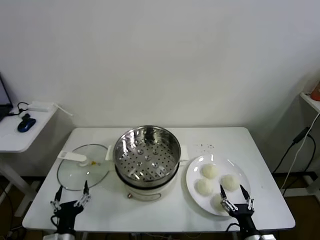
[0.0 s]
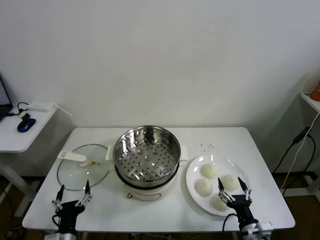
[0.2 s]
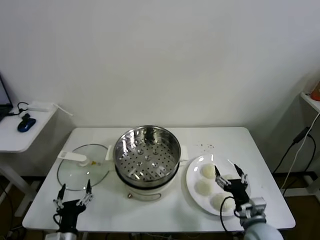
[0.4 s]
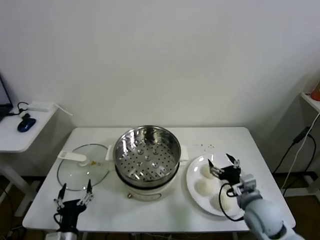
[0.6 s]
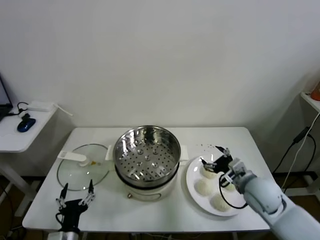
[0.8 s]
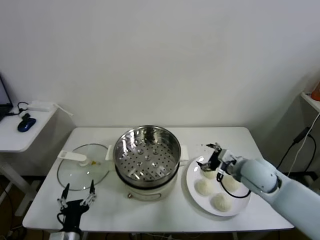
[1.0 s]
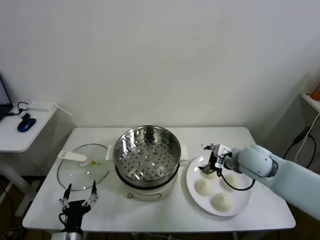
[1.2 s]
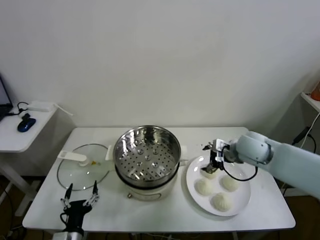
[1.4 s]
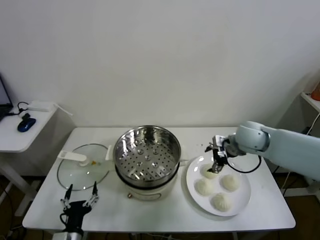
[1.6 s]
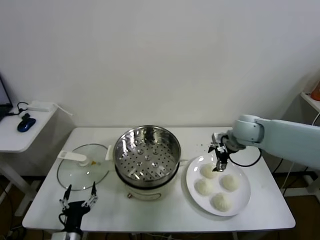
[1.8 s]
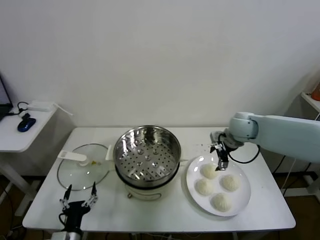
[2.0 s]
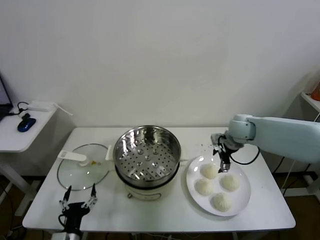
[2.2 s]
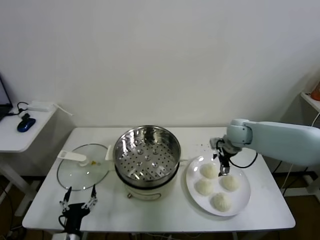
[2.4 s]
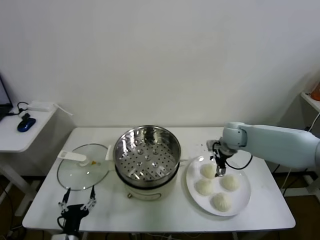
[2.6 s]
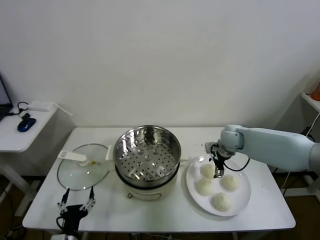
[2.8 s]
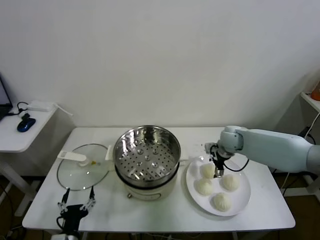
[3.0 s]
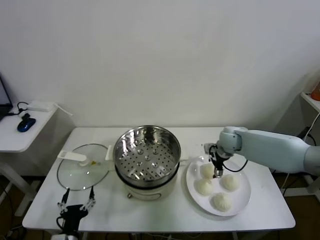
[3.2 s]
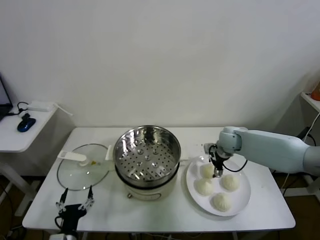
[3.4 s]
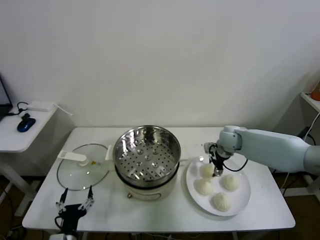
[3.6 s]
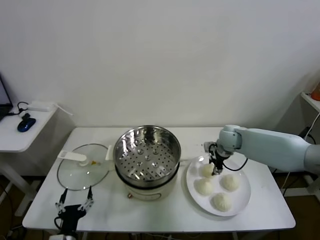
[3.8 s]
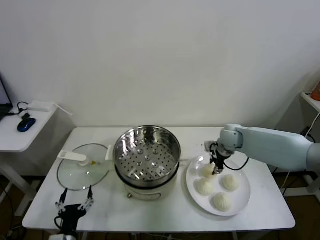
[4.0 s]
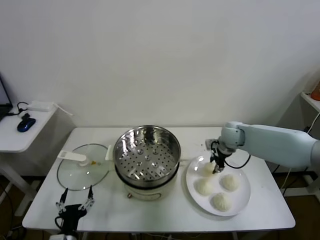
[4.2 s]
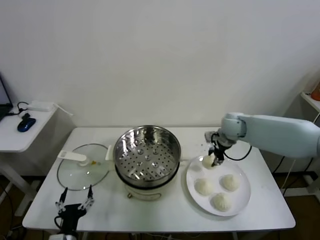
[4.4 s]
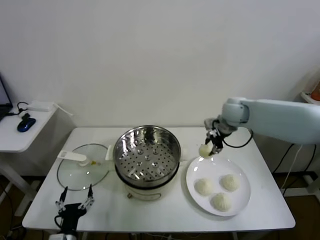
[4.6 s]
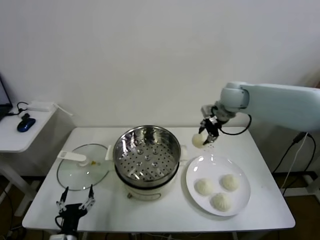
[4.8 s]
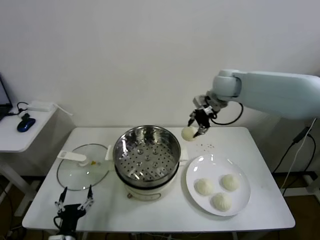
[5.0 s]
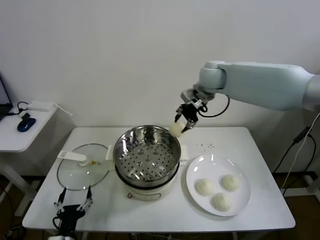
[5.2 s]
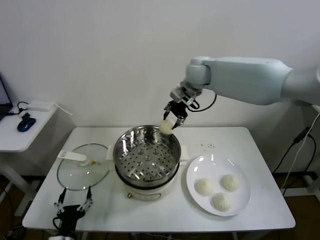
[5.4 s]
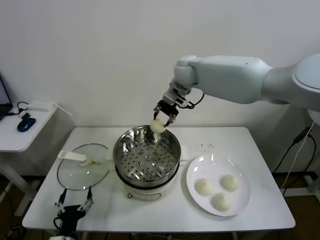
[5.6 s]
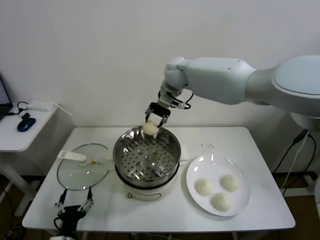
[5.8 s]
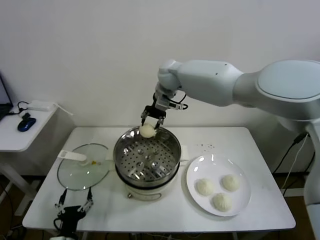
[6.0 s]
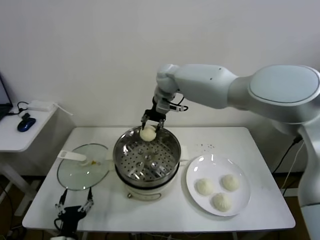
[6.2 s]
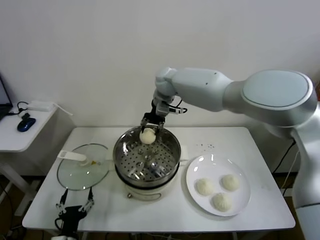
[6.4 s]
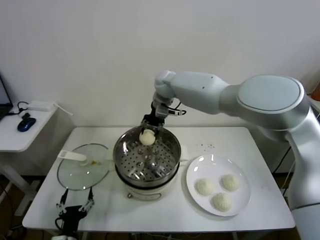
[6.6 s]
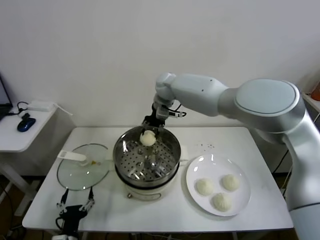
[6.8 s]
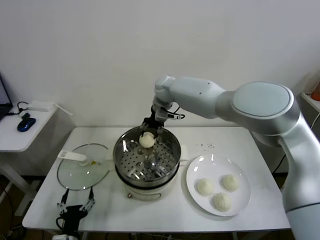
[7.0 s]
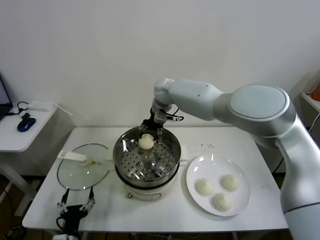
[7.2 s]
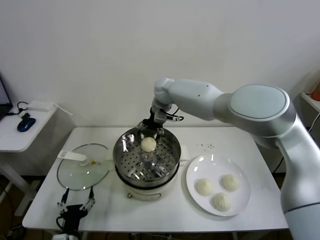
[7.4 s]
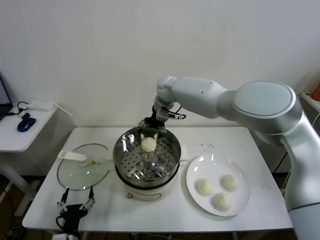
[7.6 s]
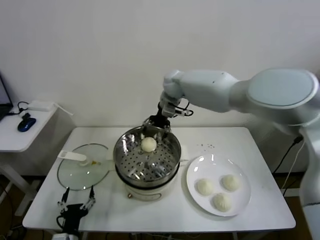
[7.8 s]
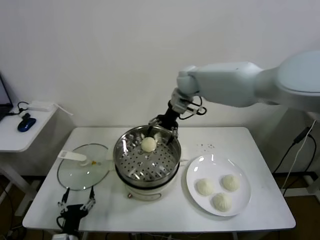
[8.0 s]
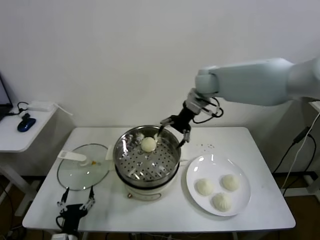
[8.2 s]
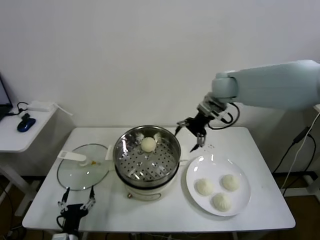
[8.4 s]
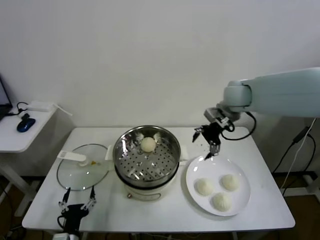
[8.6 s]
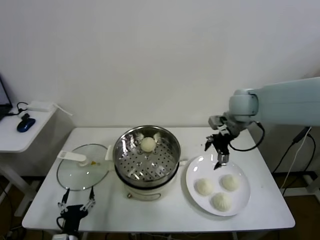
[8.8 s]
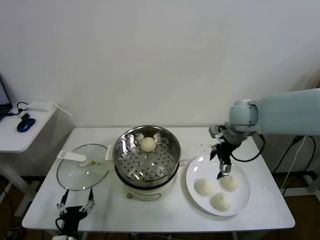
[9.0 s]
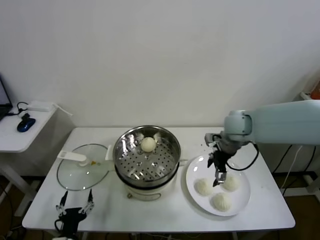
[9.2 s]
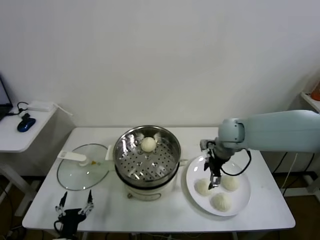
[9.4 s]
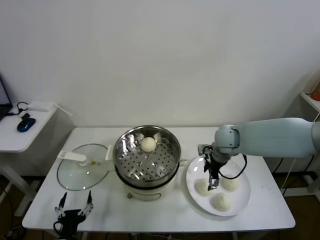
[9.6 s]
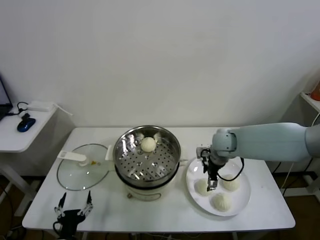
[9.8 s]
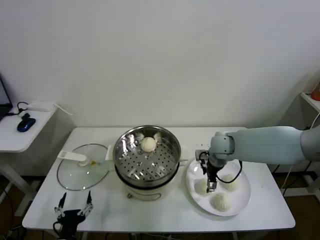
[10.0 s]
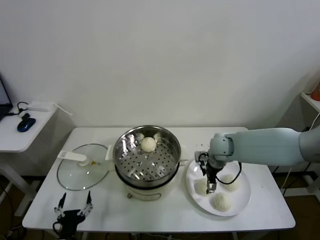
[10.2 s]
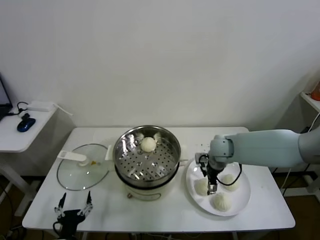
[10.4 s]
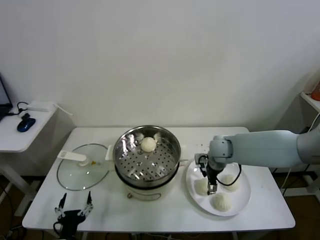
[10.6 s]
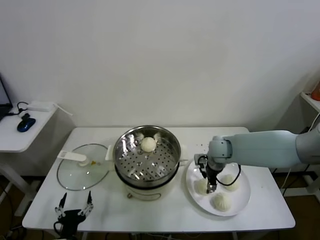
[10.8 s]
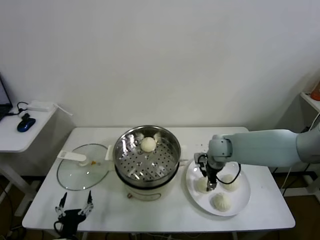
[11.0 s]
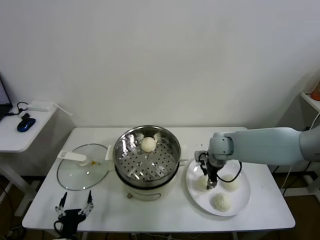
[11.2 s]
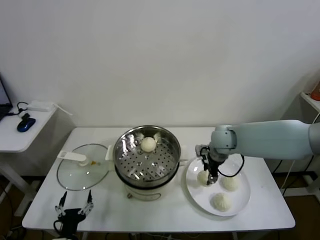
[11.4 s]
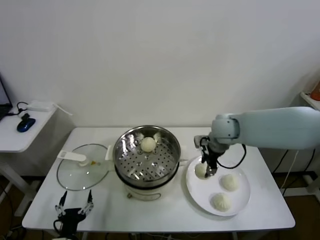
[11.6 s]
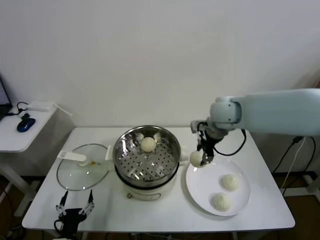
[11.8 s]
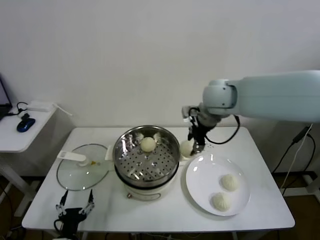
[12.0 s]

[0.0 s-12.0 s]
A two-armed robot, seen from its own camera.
Task of the whole recording: take steamed baozi put them in steamer.
Step, 0.0 to 3.8 s: Grasp the baozi in the plate with right gripper.
Step, 4.0 to 7.4 s: Place the baozi on the steamer with right gripper.
Step, 7.6 to 11.0 s: Grasp the baozi in the plate with right gripper.
1.6 to 3.0 s: The right gripper is displaced downward by some 10 cm.
3.0 to 4.4 s: The right gripper moves upward, roughly 10 cm, and closes.
4.4 to 6.0 s: The right gripper travels to the left and upward by about 25 cm.
6.0 to 7.6 s: The right gripper opens up.
7.6 to 9.0 s: The right gripper shifts about 25 cm to the right and backward.
9.0 to 10.4 s: The right gripper heads downward, covering some 15 cm.
10.4 to 12.0 s: The right gripper shifts some 25 cm upward, and closes up.

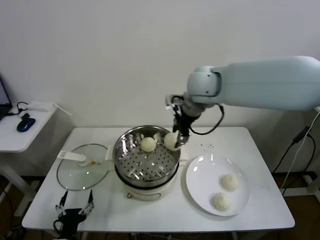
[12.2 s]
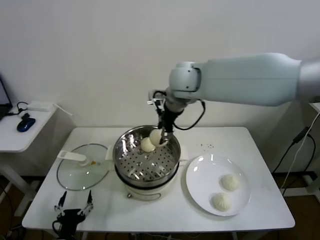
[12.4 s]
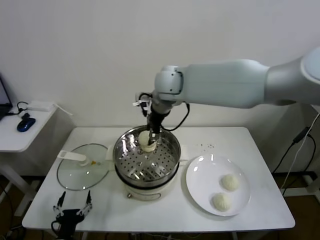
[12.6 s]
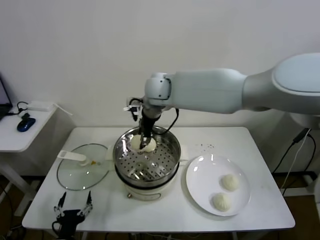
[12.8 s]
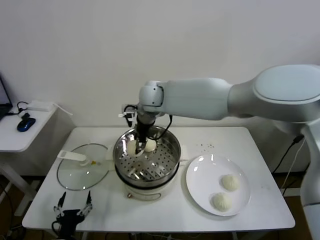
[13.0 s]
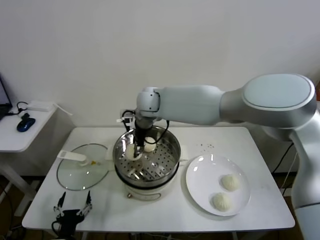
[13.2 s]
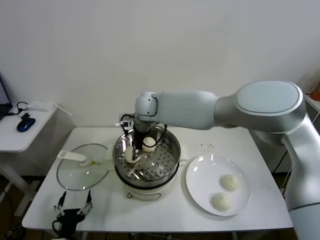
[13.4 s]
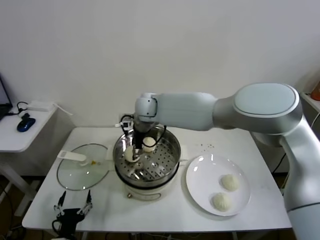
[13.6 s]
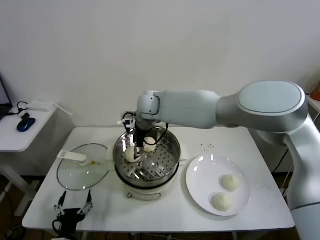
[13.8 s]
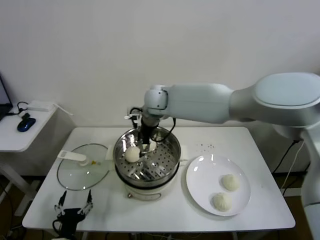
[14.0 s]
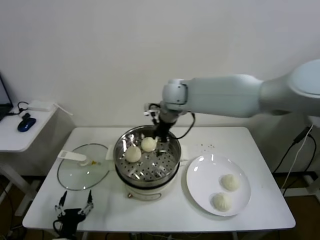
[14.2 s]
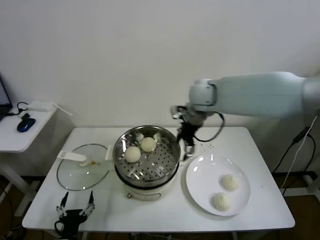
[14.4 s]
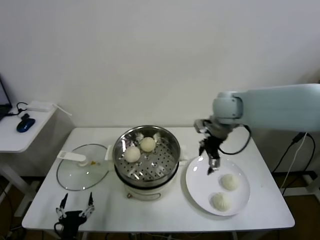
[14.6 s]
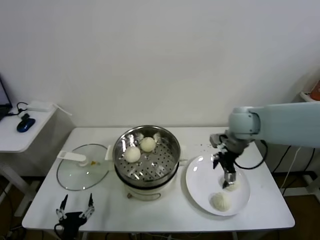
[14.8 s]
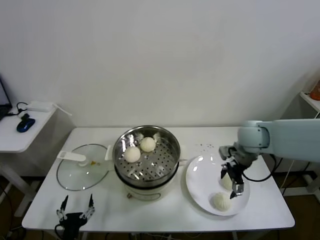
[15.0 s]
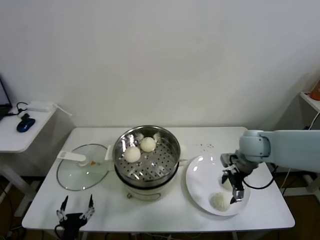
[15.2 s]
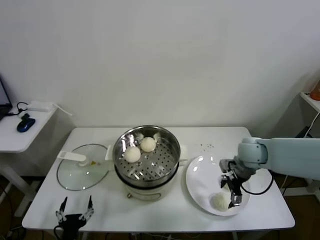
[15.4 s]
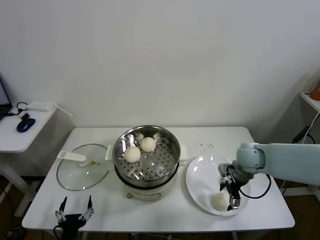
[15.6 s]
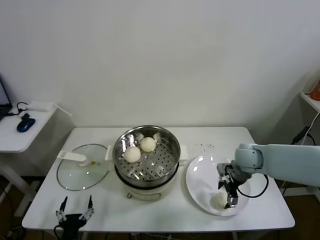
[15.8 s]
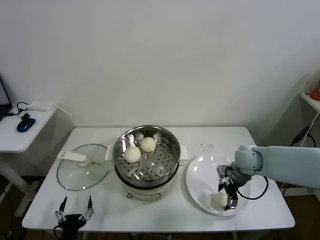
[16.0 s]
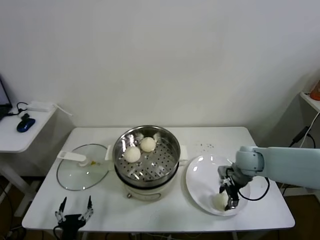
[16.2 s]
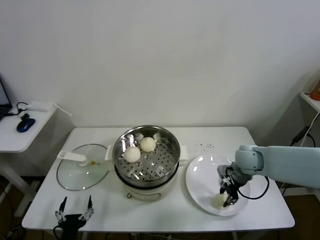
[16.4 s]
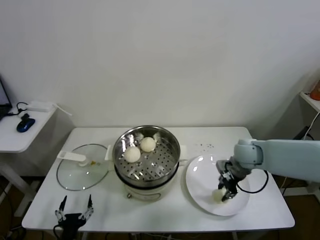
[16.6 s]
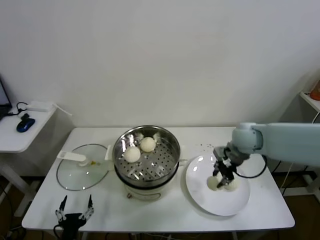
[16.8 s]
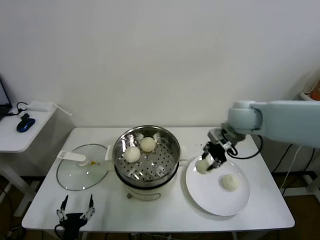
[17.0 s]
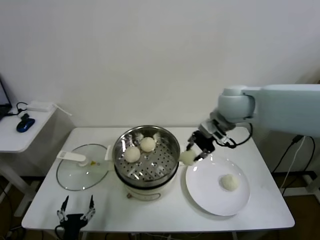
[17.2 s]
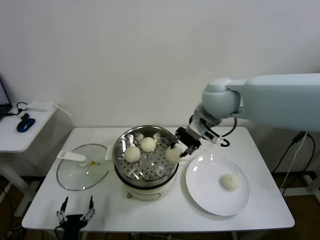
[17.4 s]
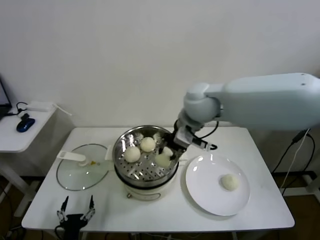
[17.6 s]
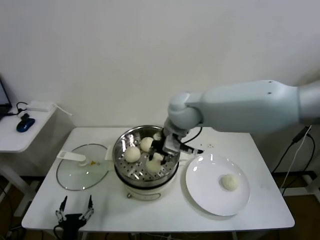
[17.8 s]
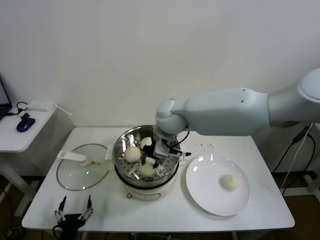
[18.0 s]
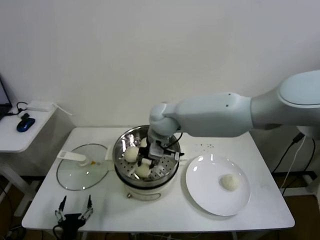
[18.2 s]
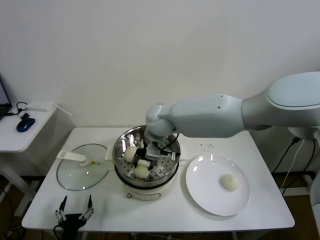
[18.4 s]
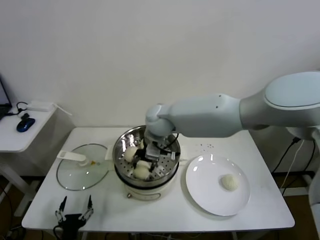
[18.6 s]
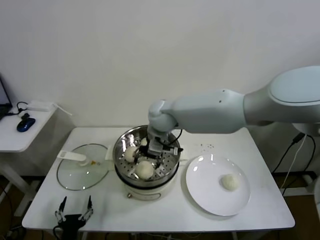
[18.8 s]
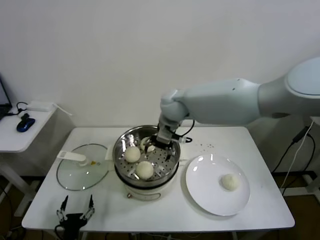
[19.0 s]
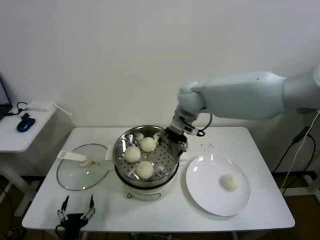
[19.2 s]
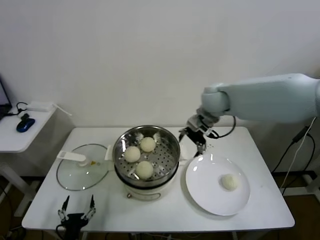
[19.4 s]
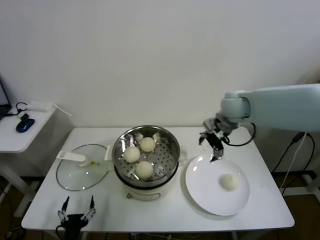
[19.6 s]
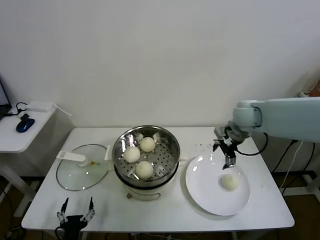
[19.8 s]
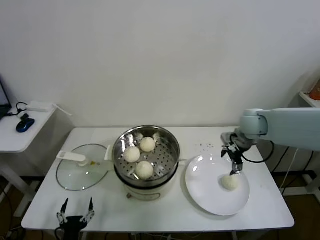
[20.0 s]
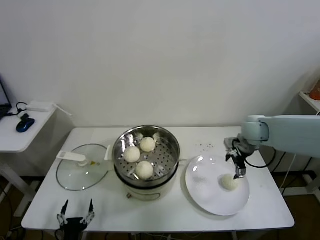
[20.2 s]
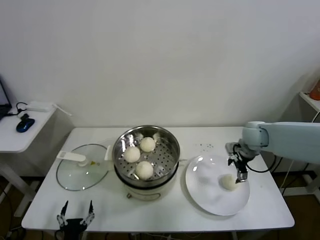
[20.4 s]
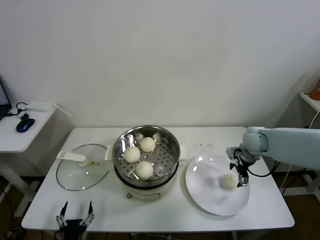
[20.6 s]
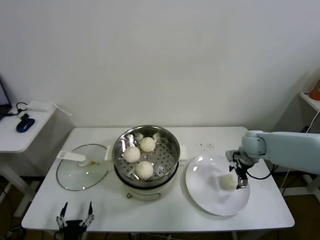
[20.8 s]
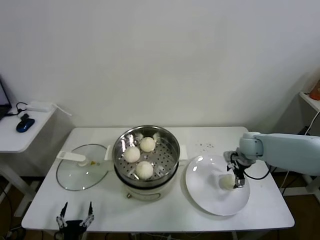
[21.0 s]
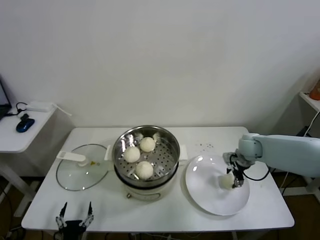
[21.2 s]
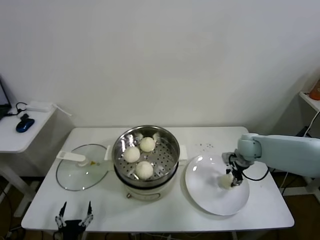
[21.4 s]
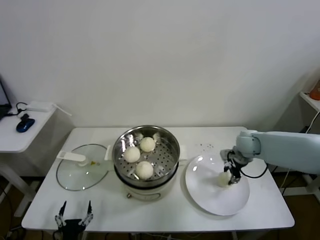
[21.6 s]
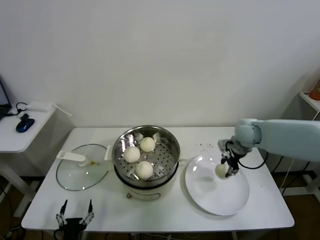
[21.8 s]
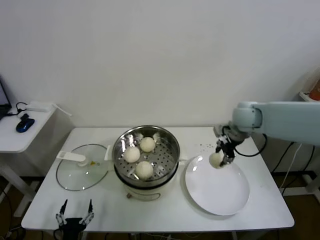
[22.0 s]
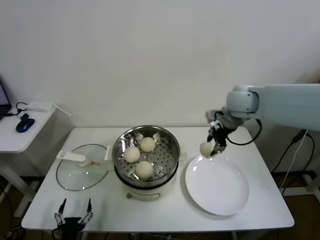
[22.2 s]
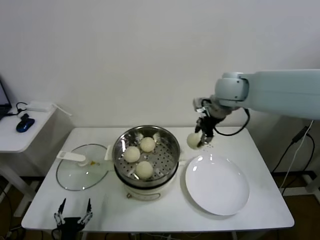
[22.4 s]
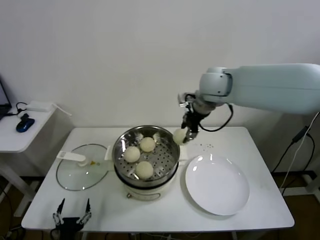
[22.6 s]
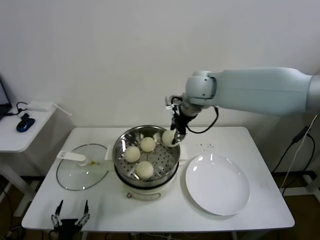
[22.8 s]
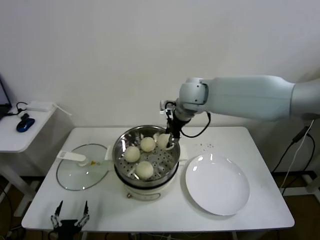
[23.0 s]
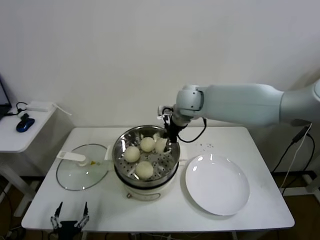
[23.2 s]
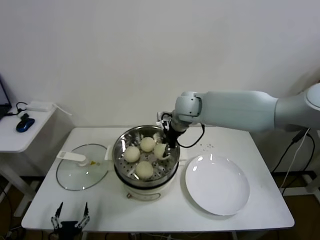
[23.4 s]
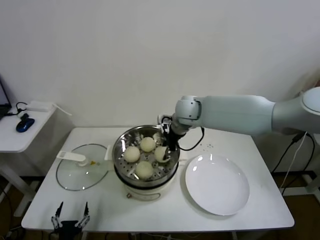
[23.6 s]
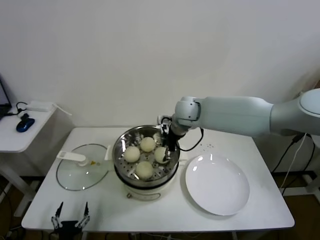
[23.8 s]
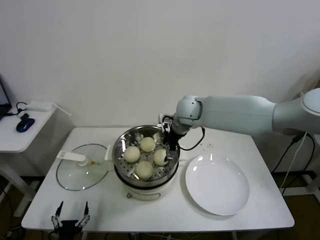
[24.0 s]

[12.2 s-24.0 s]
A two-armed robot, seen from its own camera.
Task of the whole recording: take steamed baozi put them in steamer.
Step, 12.2 to 13.8 s: Place the baozi on the steamer with right gripper.
Step, 14.0 to 16.4 s: Grasp the baozi in the plate with right gripper.
Step, 16.6 to 18.8 s: Place the baozi on the steamer with right gripper.
Step, 19.0 to 21.4 s: Grasp the baozi in the plate with right gripper.
12.2 to 13.6 s: The right gripper goes approximately 20 cm to the left and downward.
13.6 to 15.2 s: The right gripper shifts about 35 cm to the right.
15.2 to 16.6 s: The right gripper closes its fingers.
16.6 to 18.2 s: The right gripper moves to the left and upward, about 30 cm.
18.2 to 19.6 s: The right gripper is displaced to the right by approximately 20 cm, and opens its fingers.
19.6 to 21.0 s: The right gripper shifts approximately 20 cm downward and to the right.
21.0 to 22.6 s: The right gripper heads upward and to the left, covering approximately 30 cm, and closes up.
22.6 to 24.0 s: The right gripper moves downward and to the left, some 15 cm, and opens its fingers.
